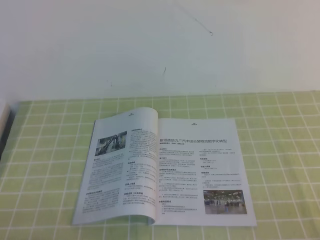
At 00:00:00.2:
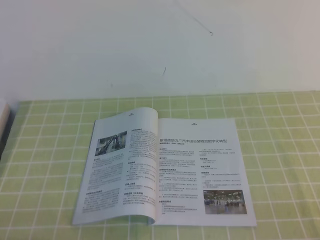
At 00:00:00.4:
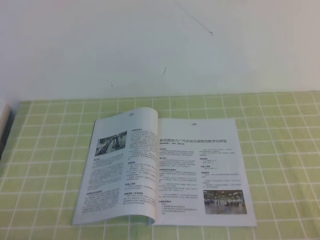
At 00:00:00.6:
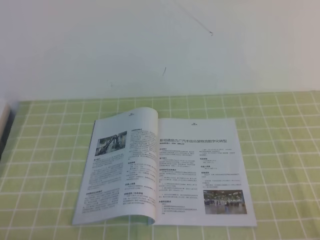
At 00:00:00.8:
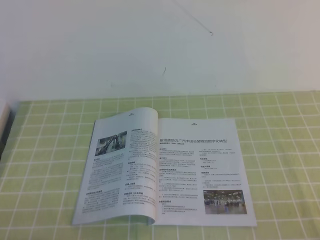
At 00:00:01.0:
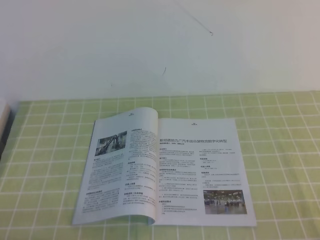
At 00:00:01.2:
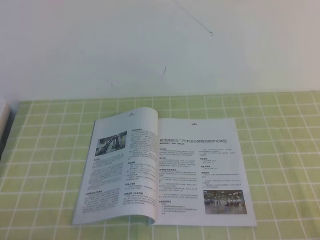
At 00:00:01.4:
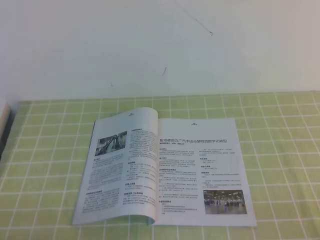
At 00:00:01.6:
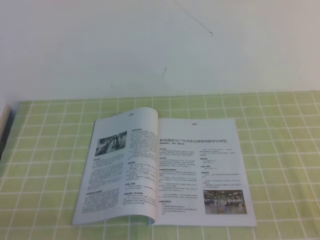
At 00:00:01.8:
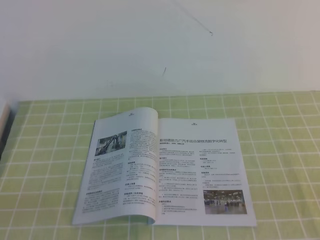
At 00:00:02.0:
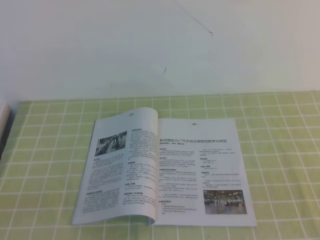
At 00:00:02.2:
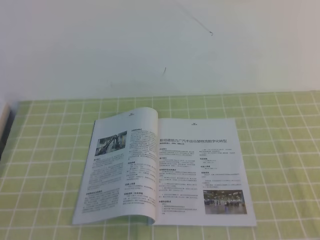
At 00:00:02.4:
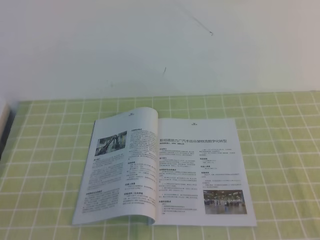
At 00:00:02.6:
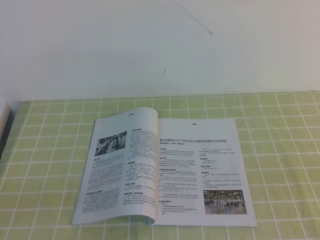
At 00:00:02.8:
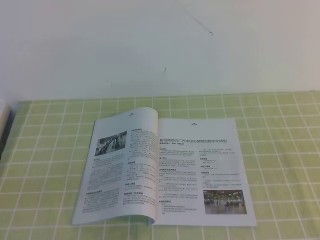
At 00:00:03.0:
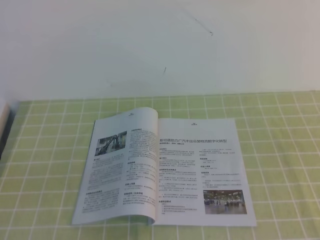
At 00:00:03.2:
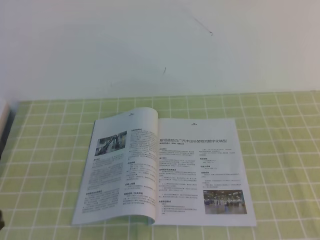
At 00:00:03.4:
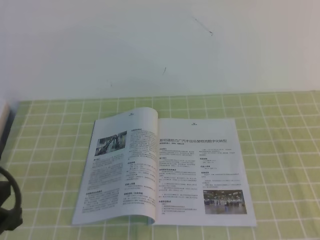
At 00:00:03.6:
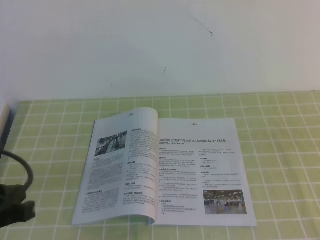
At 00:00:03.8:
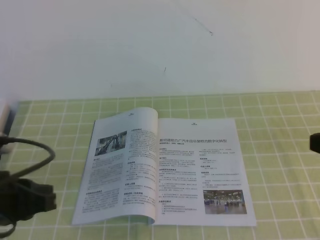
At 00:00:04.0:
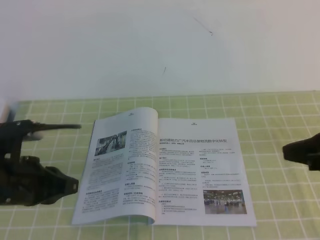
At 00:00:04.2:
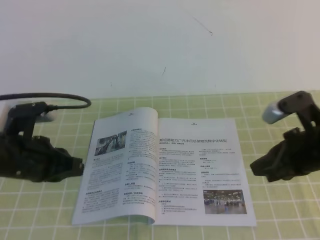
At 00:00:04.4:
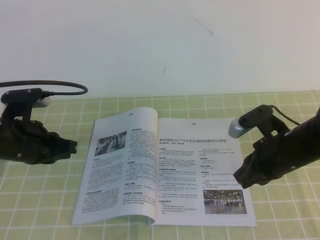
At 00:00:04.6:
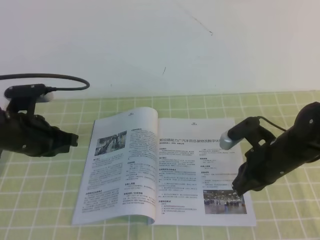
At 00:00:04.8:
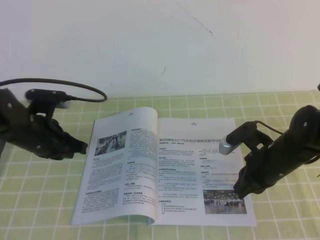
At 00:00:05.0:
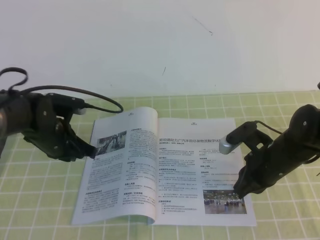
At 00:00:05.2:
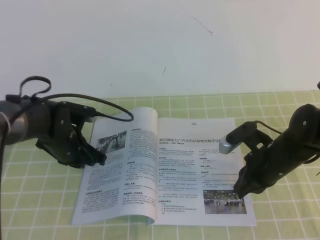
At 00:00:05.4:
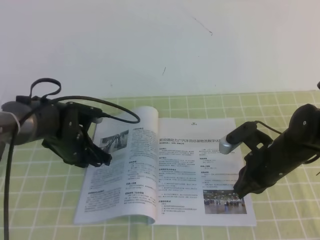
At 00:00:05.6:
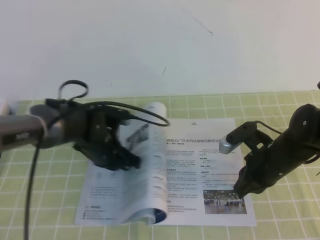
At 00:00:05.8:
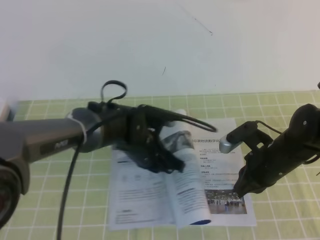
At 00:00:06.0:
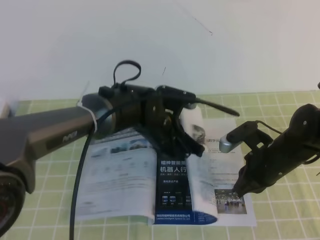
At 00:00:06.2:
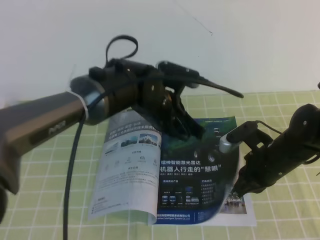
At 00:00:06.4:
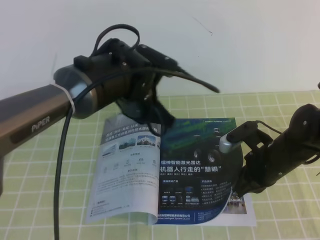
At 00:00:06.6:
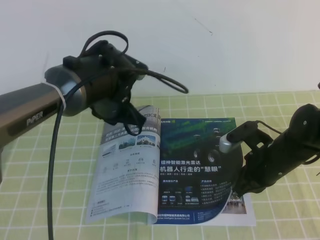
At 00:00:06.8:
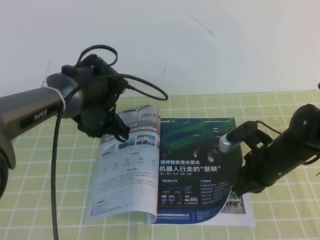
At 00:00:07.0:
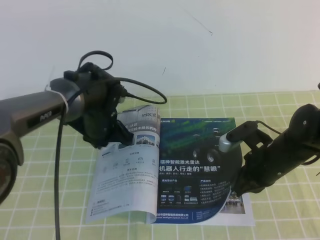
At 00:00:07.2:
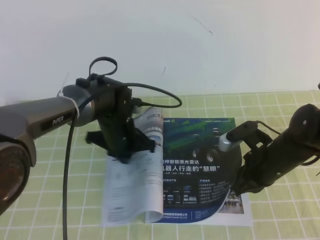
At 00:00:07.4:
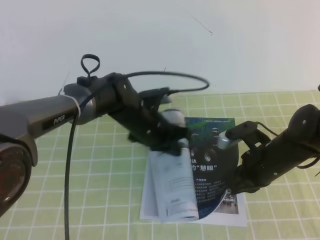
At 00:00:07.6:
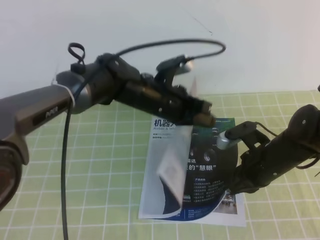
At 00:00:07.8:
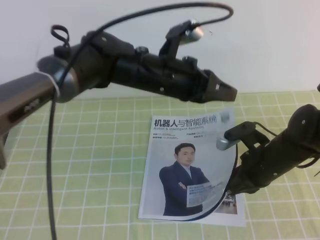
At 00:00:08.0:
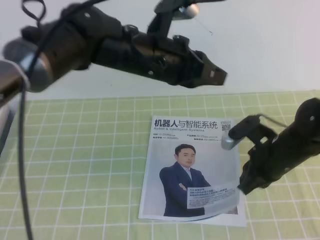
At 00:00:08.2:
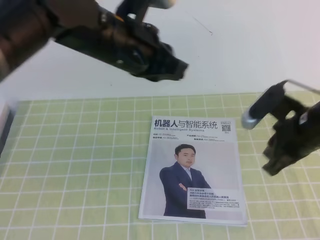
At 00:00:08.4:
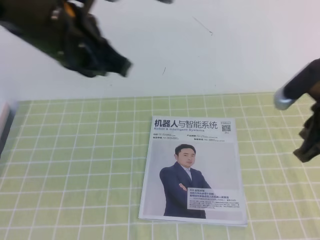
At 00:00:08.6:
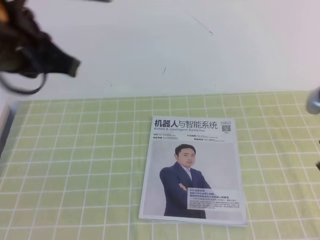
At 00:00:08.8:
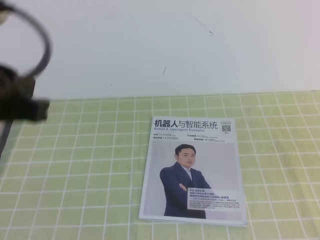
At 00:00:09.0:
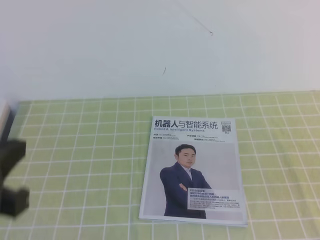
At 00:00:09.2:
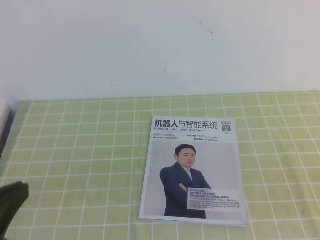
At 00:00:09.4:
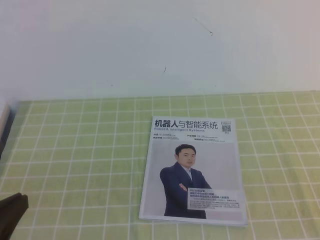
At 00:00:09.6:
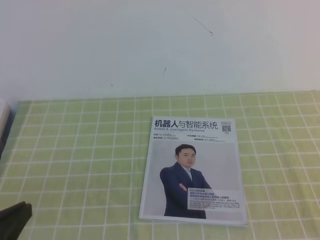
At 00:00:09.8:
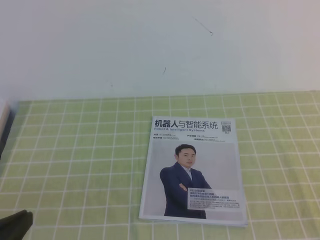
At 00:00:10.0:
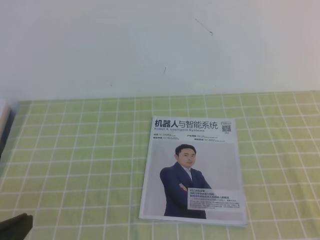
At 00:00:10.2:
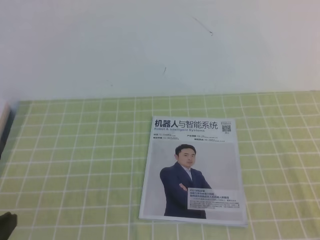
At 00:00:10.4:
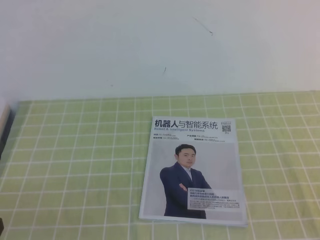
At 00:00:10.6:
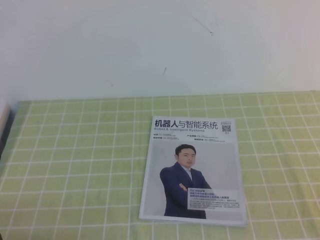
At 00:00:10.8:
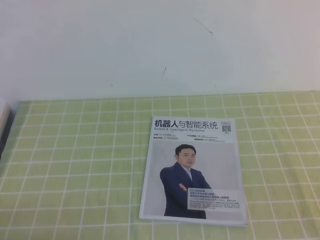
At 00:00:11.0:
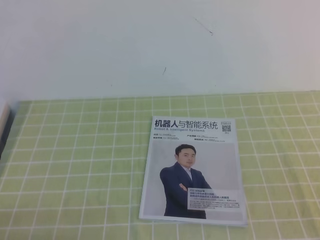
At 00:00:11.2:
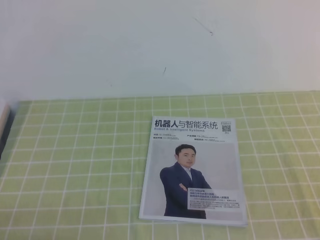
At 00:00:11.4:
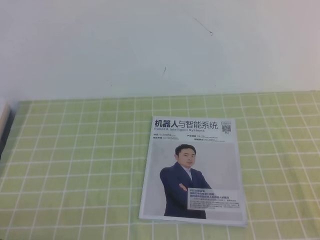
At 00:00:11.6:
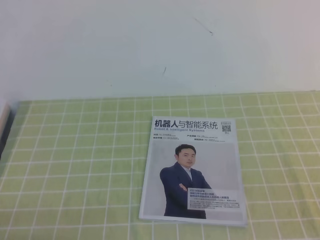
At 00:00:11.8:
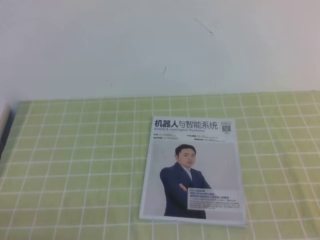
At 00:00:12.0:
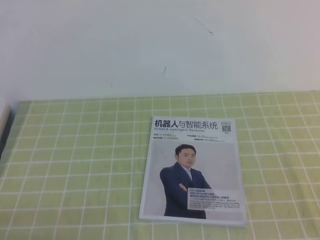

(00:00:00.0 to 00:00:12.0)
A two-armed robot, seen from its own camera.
Task of the whole recording: on the green tablecloth, hold the book with one hand and close it with the other.
00:00:03.0 - 00:00:04.4: The left gripper goes about 25 cm forward. Meanwhile the right gripper is displaced forward, downward and to the left by approximately 30 cm.
00:00:04.4 - 00:00:06.0: The left gripper shifts roughly 20 cm to the right; the right gripper moves downward, approximately 5 cm.
00:00:06.0 - 00:00:07.6: The left gripper travels to the left and back again, approximately 10 cm each way.
00:00:07.6 - 00:00:09.0: The right gripper is displaced backward, upward and to the right by some 30 cm. The left gripper moves backward, to the left and upward, about 35 cm.
00:00:09.0 - 00:00:10.4: The right gripper travels backward by roughly 5 cm. Meanwhile the left gripper goes roughly 15 cm downward and backward.
